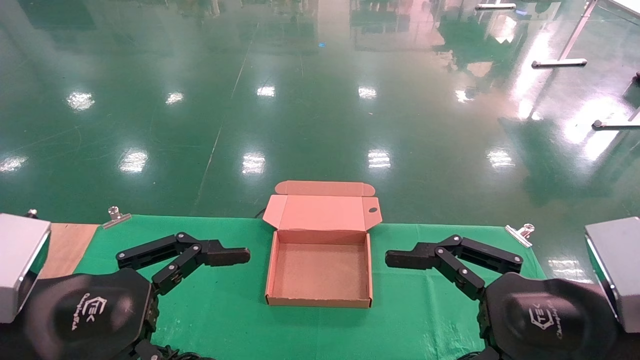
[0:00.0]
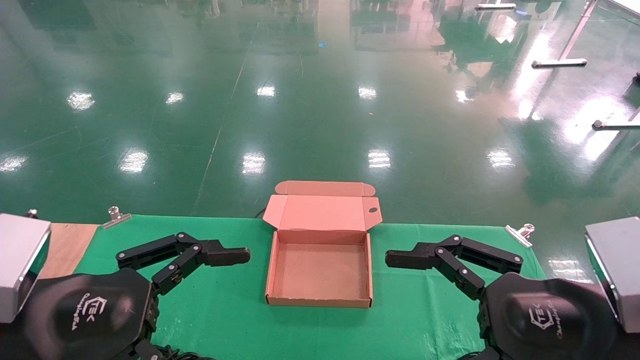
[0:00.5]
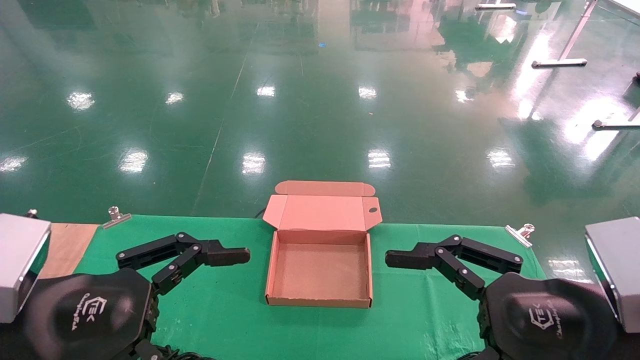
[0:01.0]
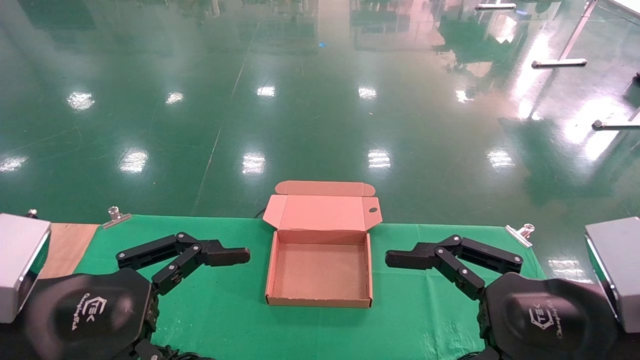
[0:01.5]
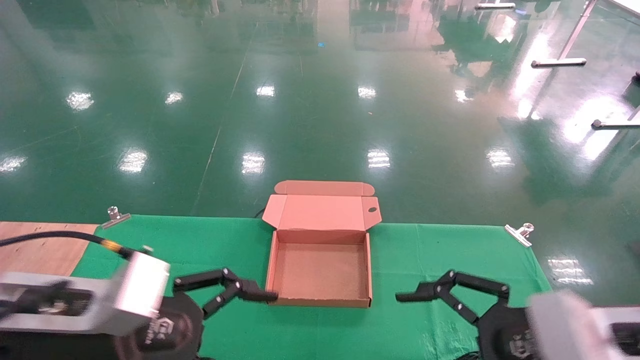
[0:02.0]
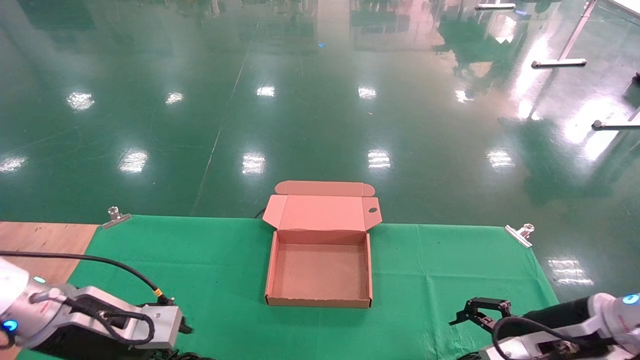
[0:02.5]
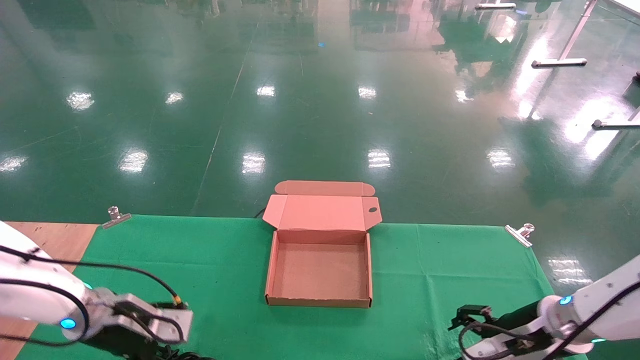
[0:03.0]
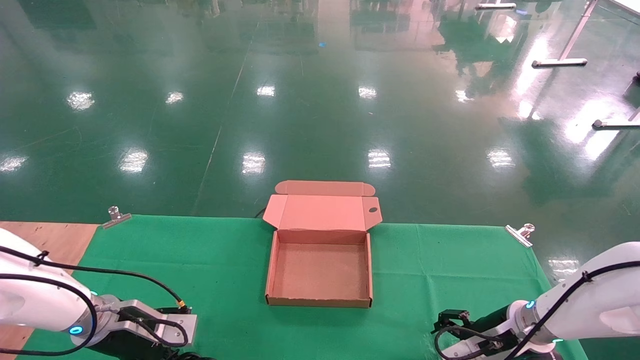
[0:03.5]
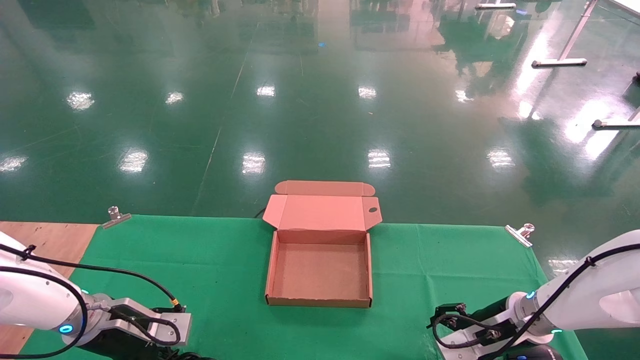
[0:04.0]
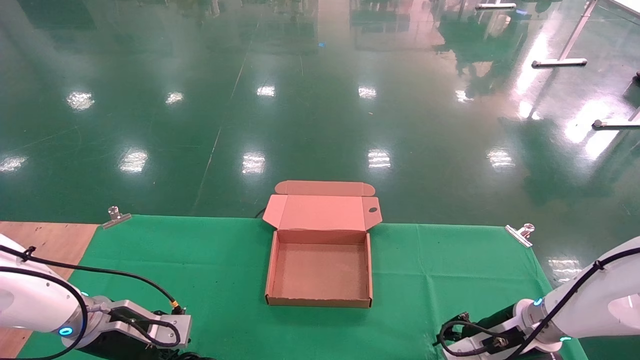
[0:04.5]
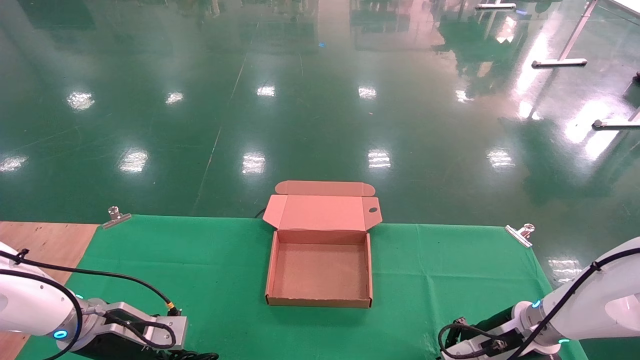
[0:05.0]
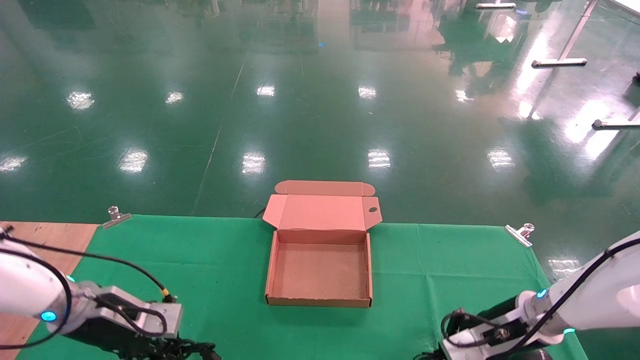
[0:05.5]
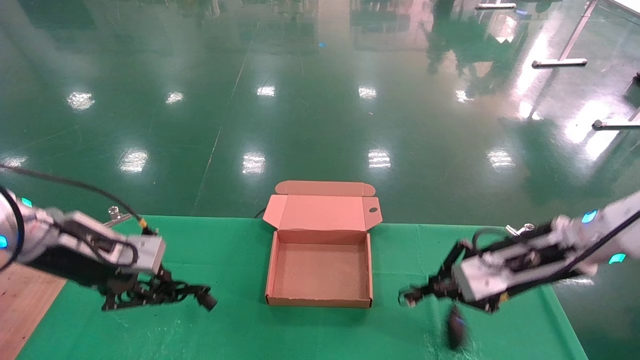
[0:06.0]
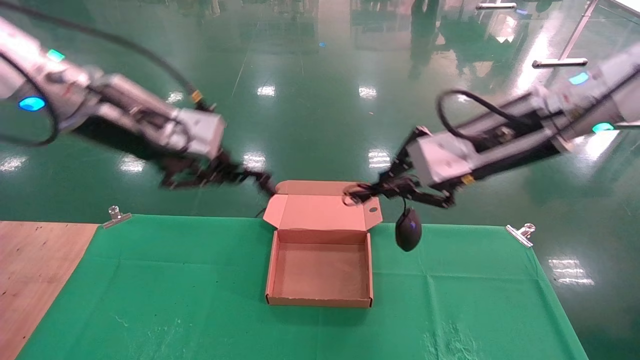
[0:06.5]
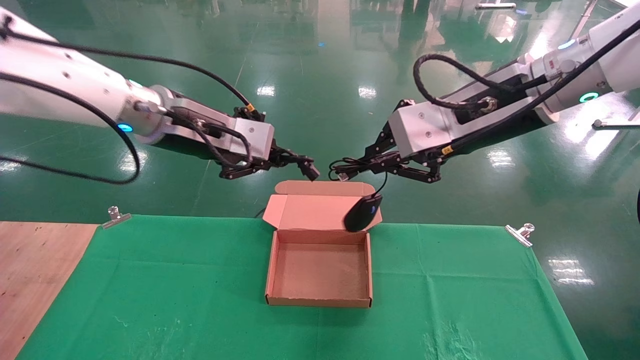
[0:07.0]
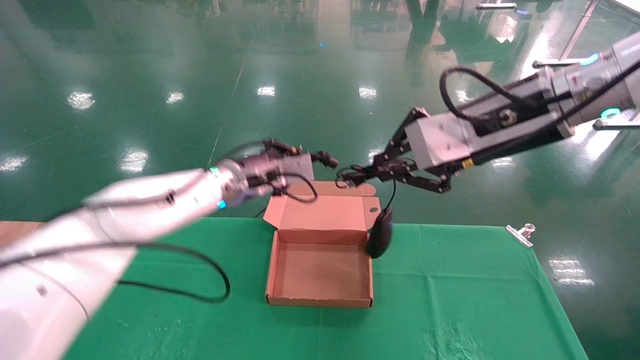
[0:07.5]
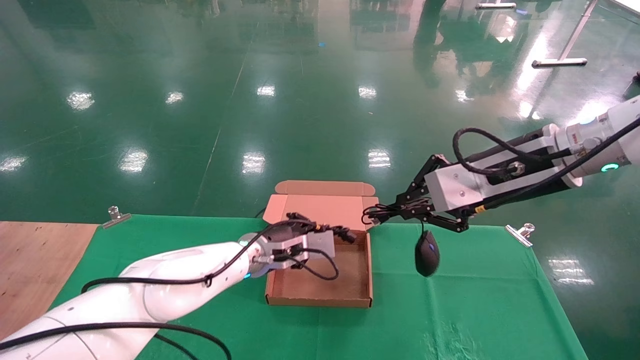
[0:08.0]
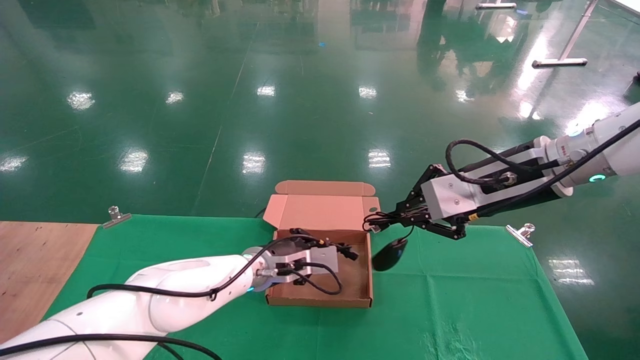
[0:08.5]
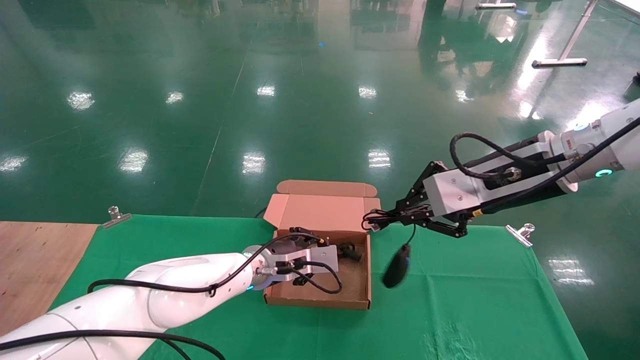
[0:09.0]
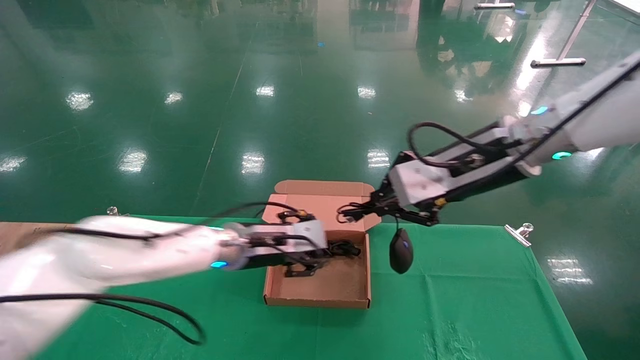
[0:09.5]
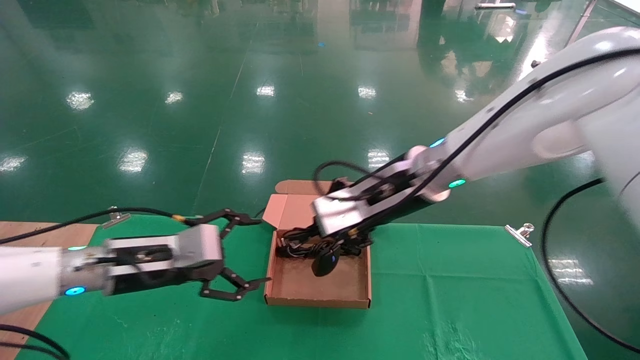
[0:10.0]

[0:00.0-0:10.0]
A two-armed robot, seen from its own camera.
Step, 0:02.5 to 0:06.0: Grab and lift both the mouse and power cord from the accessory packaging area at the same time.
0:00.0 to 0:02.0: The left gripper ends up roughly 5 cm from where it was. The right gripper shifts by approximately 5 cm.
0:02.0 to 0:04.0: The left gripper moves forward, downward and to the left, roughly 20 cm. The right gripper moves forward and downward, roughly 20 cm.
0:04.0 to 0:06.0: Both grippers move upward, approximately 15 cm. The right gripper closes up; the left gripper closes its fingers.
0:06.0 to 0:08.0: The left gripper travels to the right, forward and downward by roughly 25 cm, while the right gripper moves upward, some 10 cm.
0:08.0 to 0:10.0: The left gripper is displaced to the left and backward by about 20 cm, and opens. Meanwhile the right gripper goes about 15 cm to the left.

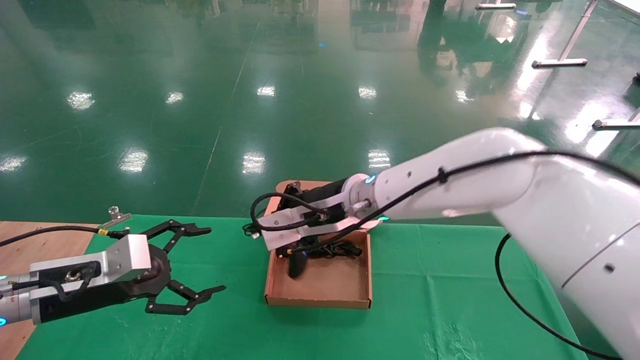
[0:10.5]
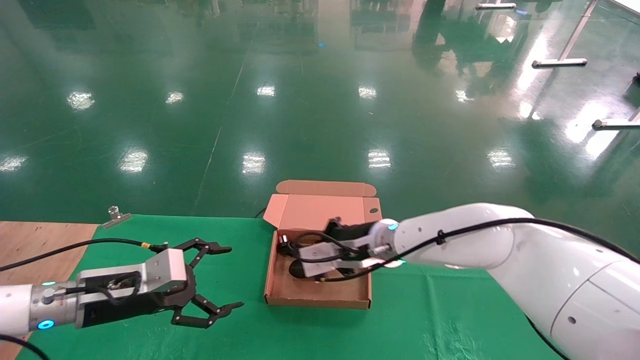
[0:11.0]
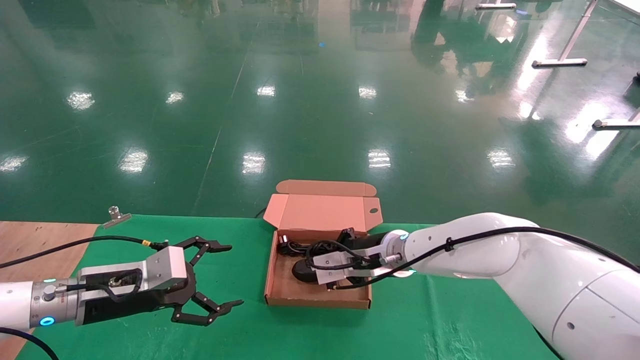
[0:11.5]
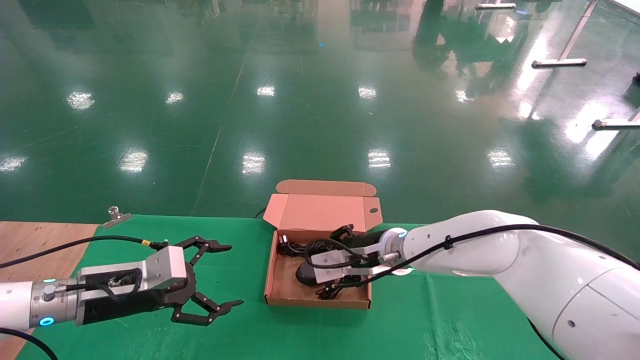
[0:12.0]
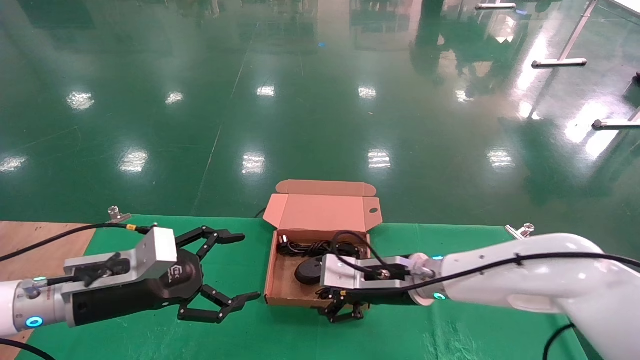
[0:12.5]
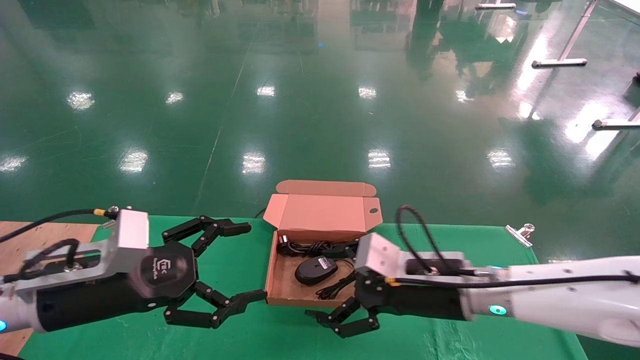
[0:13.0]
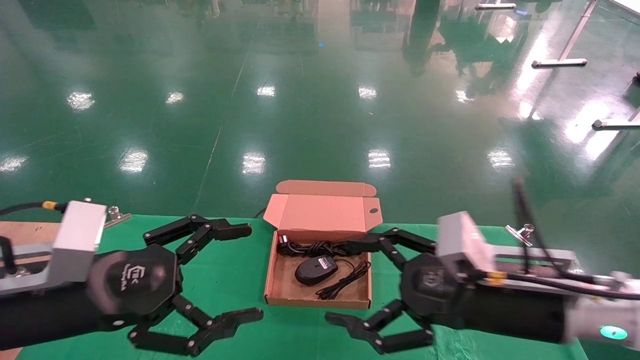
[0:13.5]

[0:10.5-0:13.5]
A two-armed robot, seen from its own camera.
0:10.5 to 0:12.0: The right gripper shifts some 10 cm downward and to the right.
0:12.0 to 0:13.5: The left gripper shifts some 15 cm backward and upward; the right gripper travels backward and to the right by some 20 cm, and opens.
